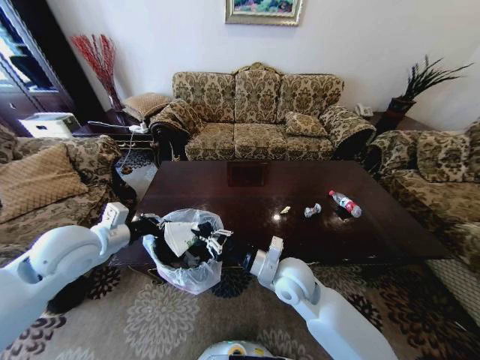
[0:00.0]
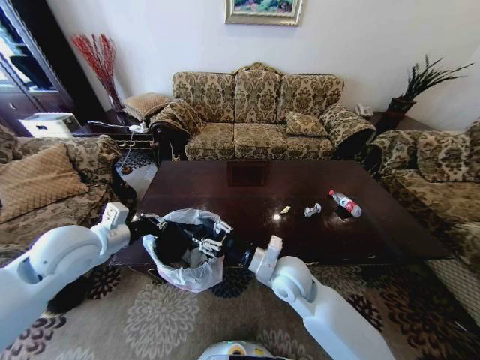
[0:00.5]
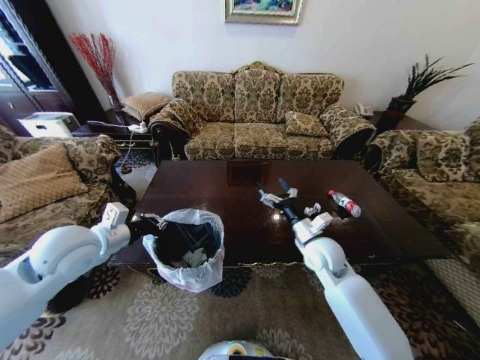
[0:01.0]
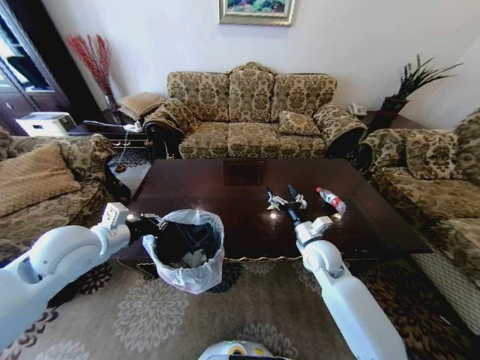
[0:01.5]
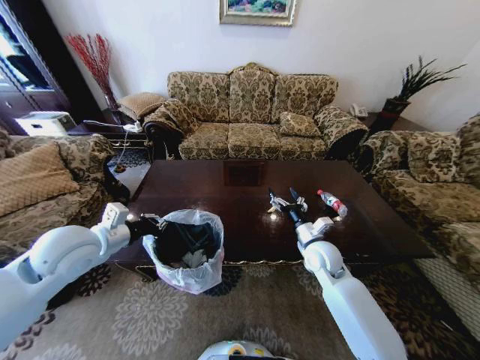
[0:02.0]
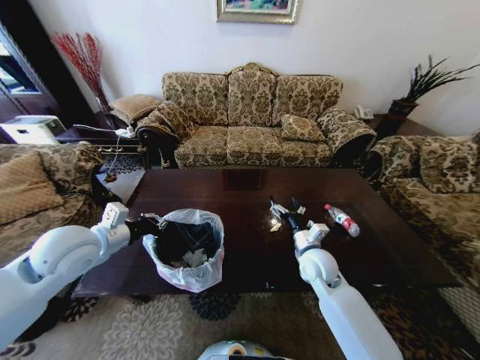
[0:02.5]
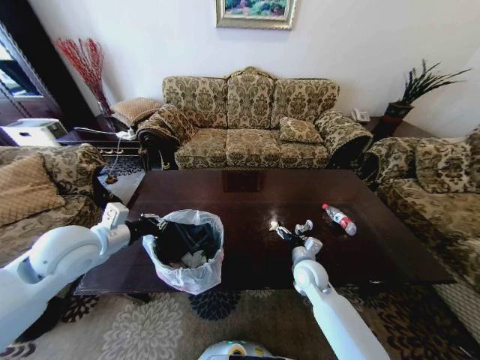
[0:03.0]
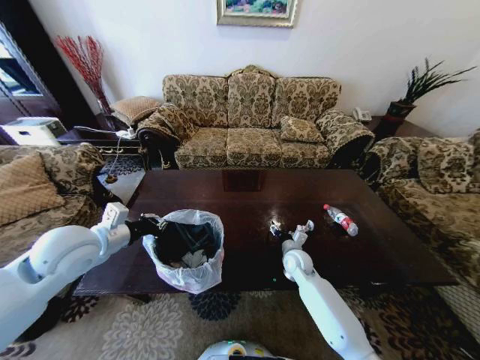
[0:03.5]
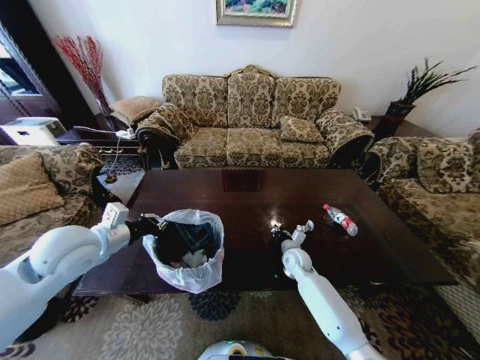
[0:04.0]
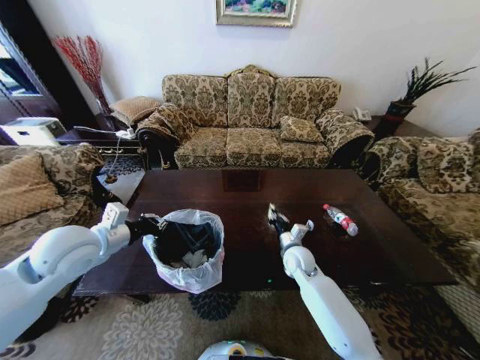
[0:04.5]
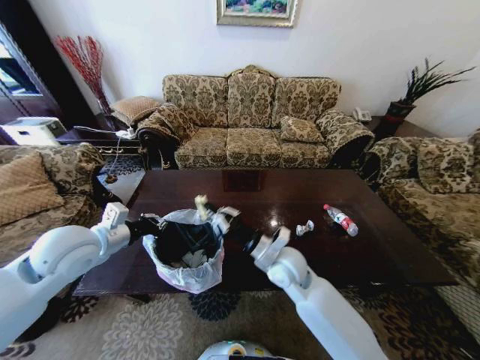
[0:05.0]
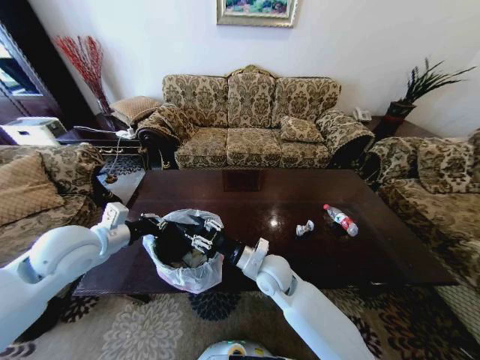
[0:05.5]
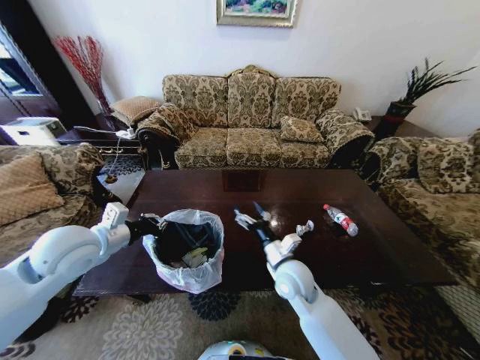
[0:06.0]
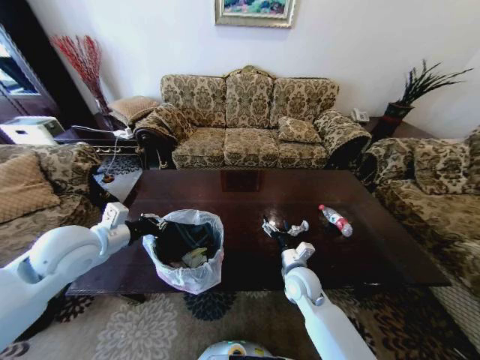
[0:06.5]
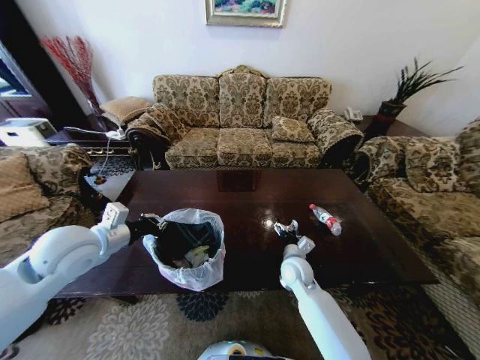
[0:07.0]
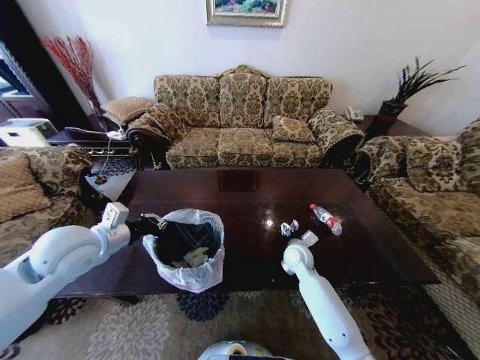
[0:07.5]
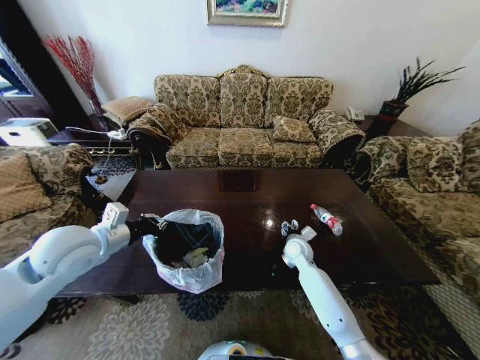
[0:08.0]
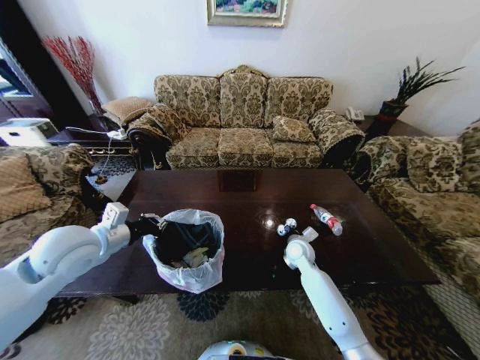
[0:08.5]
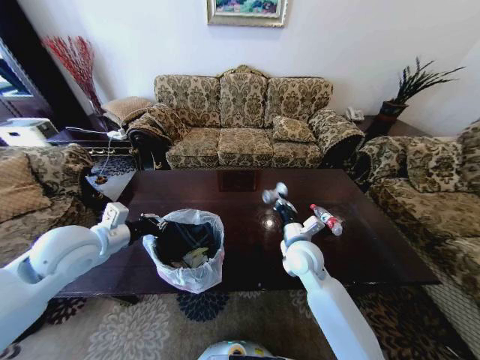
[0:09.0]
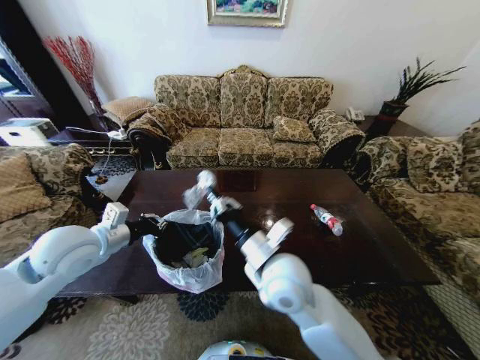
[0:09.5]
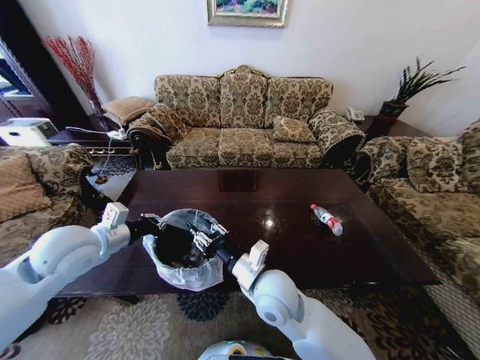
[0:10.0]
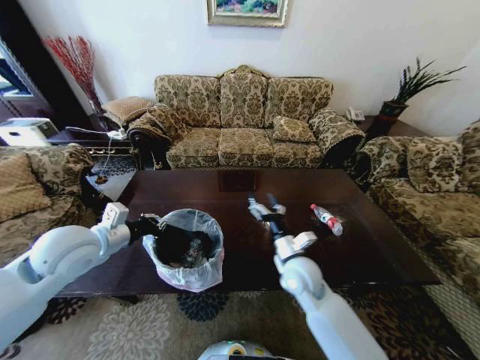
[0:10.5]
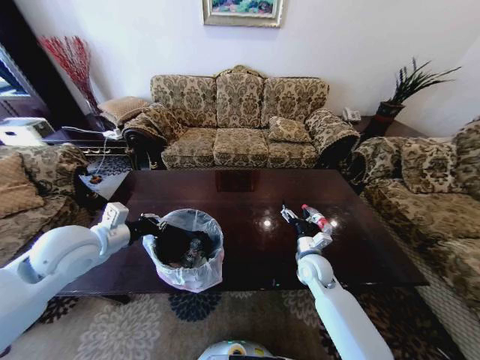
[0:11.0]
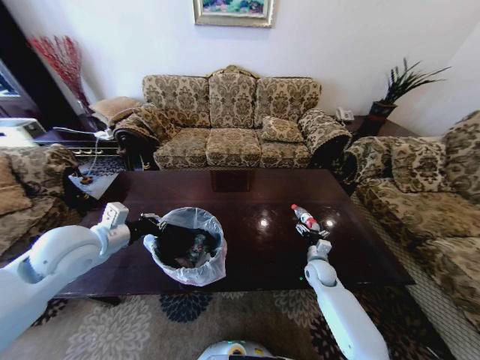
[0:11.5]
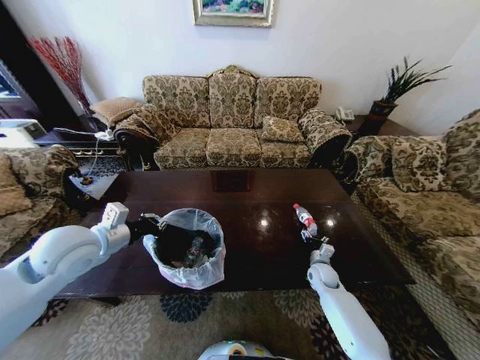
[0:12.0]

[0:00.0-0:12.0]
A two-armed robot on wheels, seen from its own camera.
Task of the whole recording: Move to the front of the table and place the trash on the table into the trash bin.
0:00.0 to 0:02.0: The right gripper moves to the right and forward, roughly 15 cm, and opens up.
0:02.0 to 0:04.0: The right gripper shifts about 15 cm downward, and closes.
0:04.0 to 0:06.0: The right gripper heads upward, backward and to the left, covering roughly 20 cm, and opens its fingers.
0:06.0 to 0:08.0: The right gripper goes about 15 cm forward, downward and to the right.
0:08.0 to 0:10.0: The right gripper shifts roughly 25 cm backward, to the left and upward.
0:10.0 to 0:12.0: The right gripper shifts approximately 35 cm to the right, downward and forward, and opens.

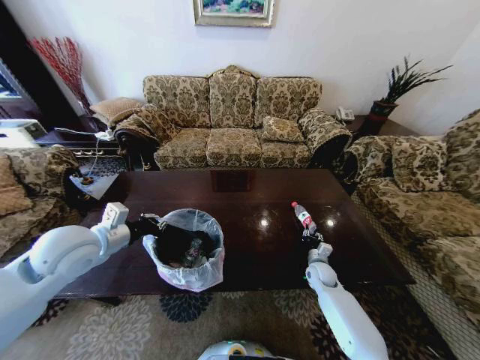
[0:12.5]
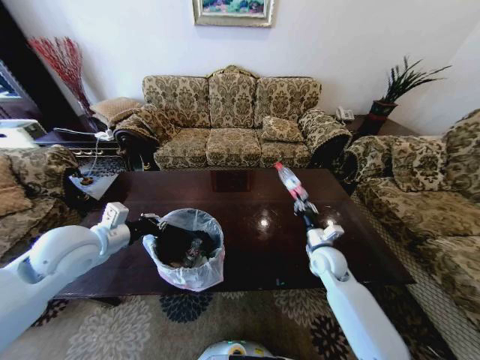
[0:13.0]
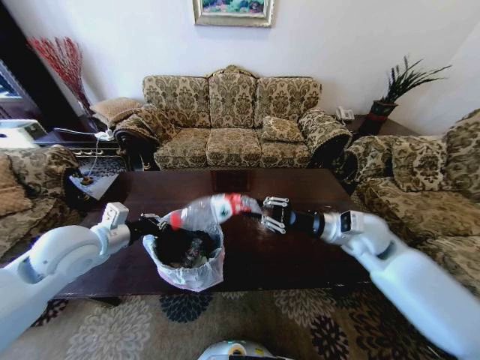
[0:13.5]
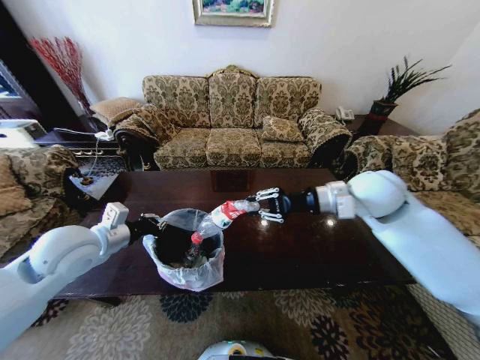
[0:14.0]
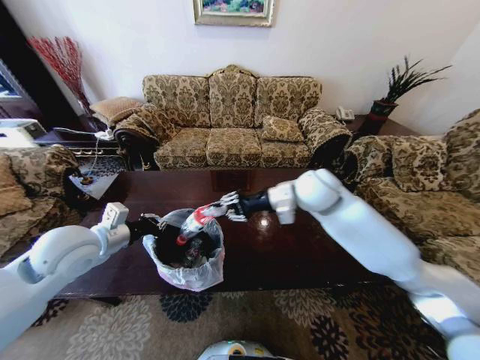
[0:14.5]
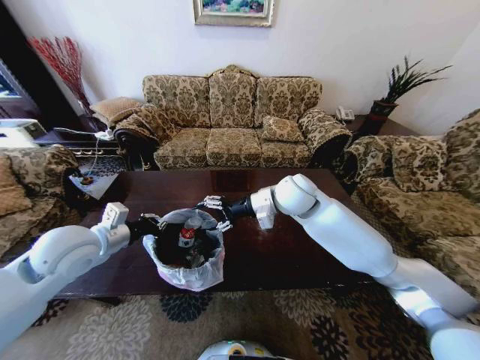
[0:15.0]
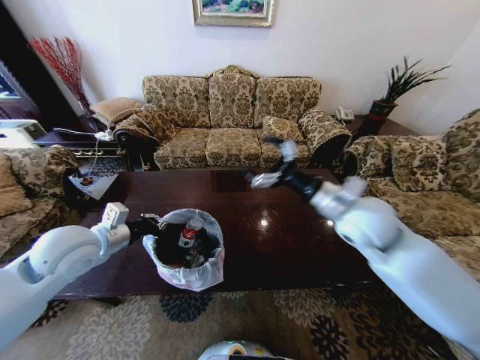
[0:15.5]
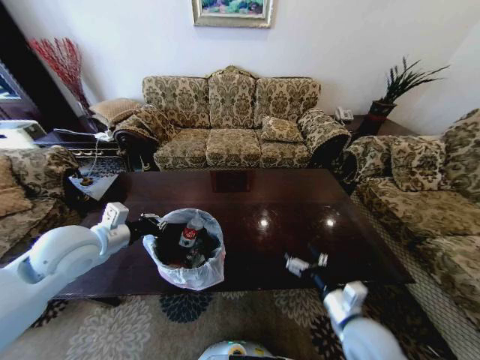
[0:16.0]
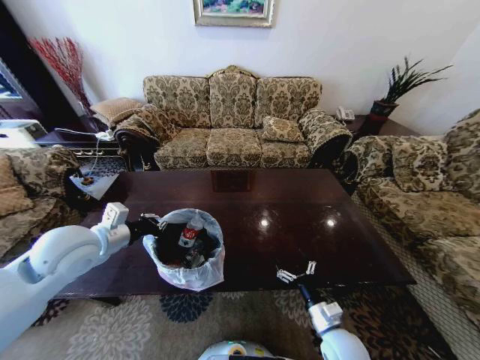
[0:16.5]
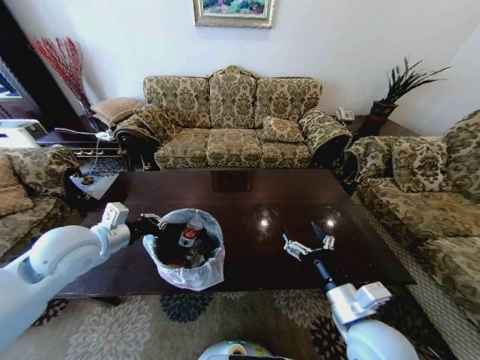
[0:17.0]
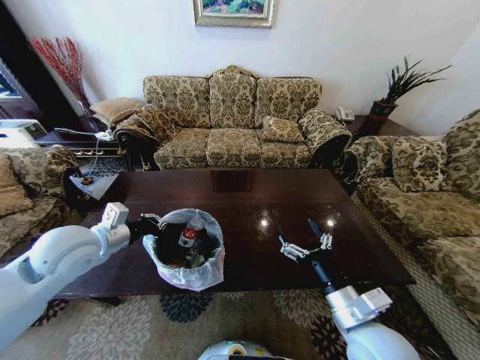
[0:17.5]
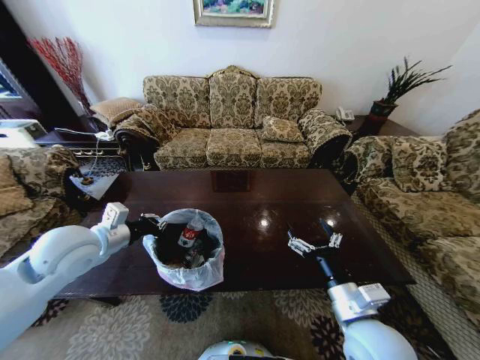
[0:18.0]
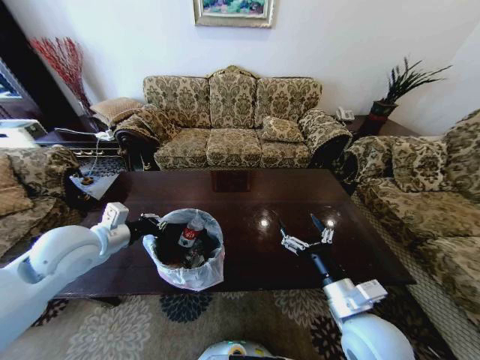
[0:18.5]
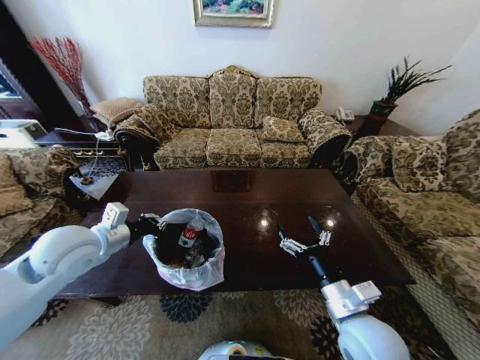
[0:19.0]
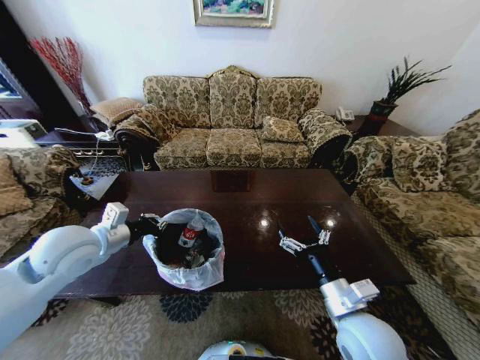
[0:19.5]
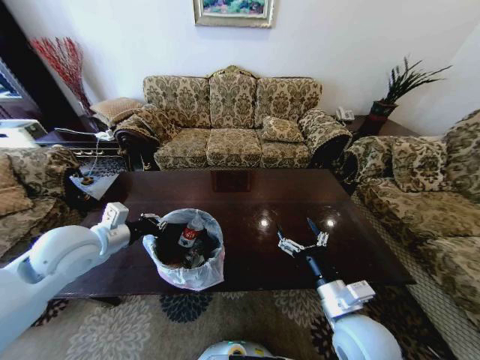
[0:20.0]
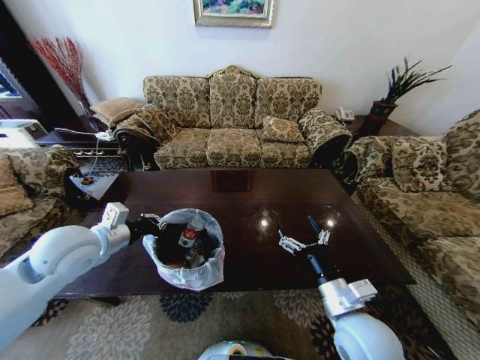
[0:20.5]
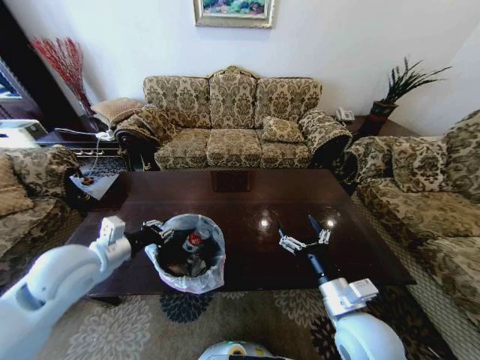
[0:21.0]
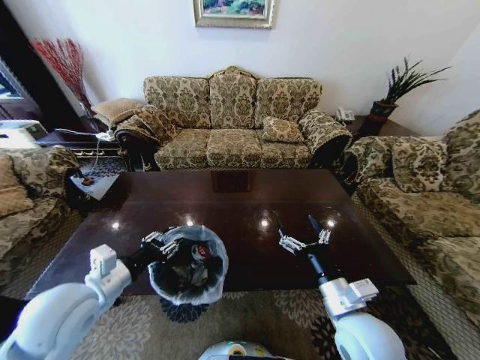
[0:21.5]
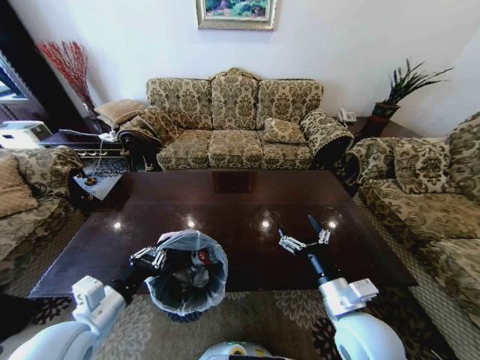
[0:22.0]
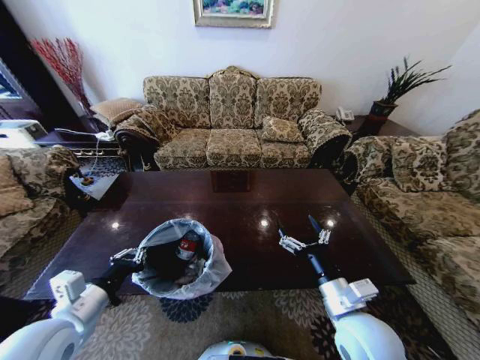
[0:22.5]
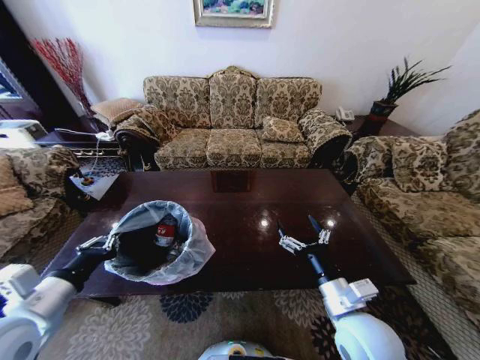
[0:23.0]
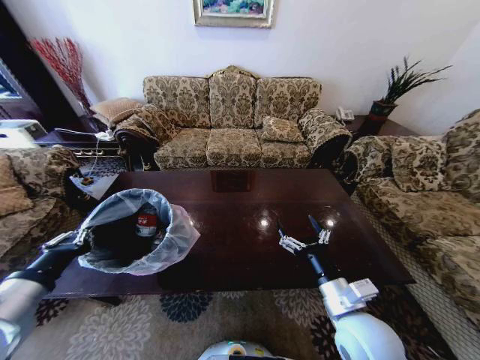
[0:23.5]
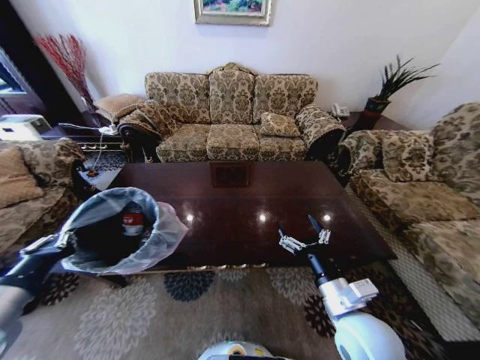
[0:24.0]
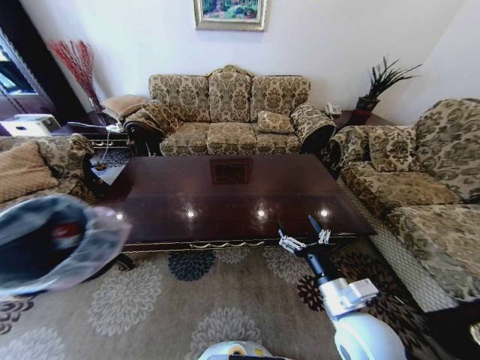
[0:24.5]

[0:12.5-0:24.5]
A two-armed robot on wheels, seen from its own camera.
Task of the whole recording: Move to the front of the table and place the trash on the table into the trash bin.
0:12.5 to 0:14.5: The right gripper is displaced upward by some 40 cm.
0:14.5 to 0:16.5: The right gripper shifts approximately 40 cm downward and backward, and opens its fingers.
0:16.5 to 0:18.5: The right gripper heads upward, covering some 20 cm.
0:18.5 to 0:20.5: There are only small adjustments of the grippers.
0:20.5 to 0:22.5: The left gripper shifts roughly 15 cm backward and downward, and opens, then closes once more.
0:22.5 to 0:24.5: The left gripper goes roughly 20 cm to the left and backward.

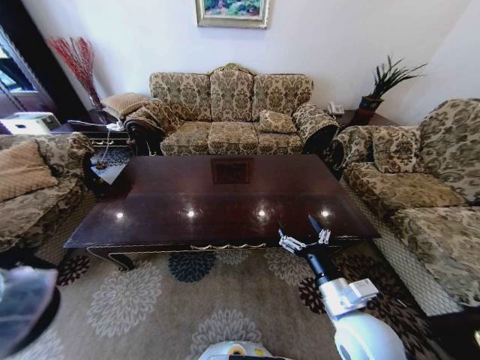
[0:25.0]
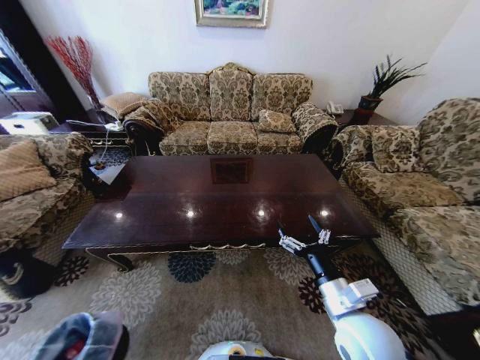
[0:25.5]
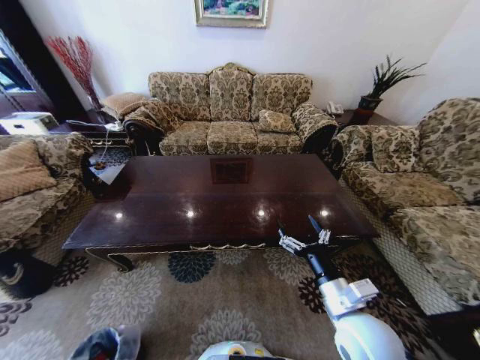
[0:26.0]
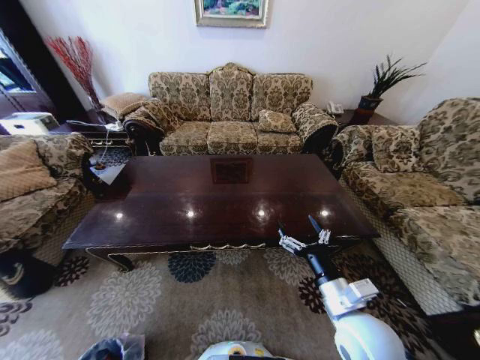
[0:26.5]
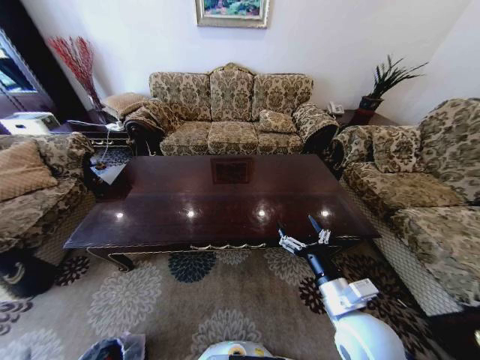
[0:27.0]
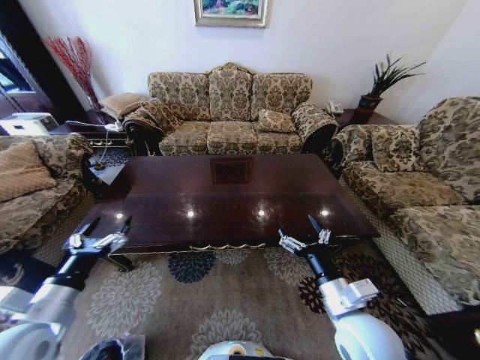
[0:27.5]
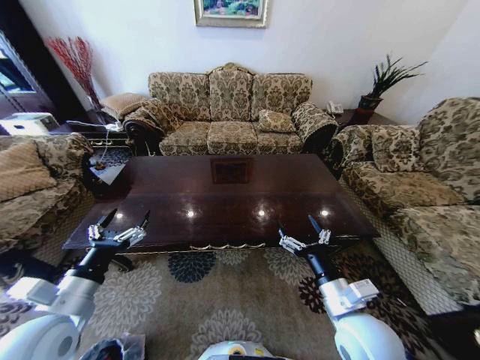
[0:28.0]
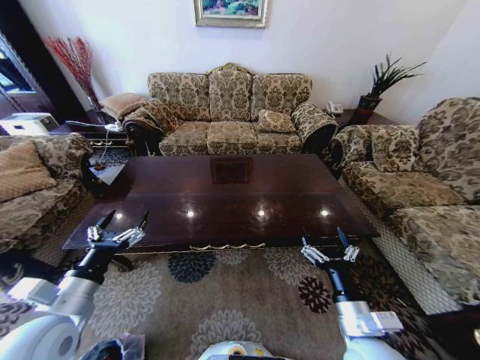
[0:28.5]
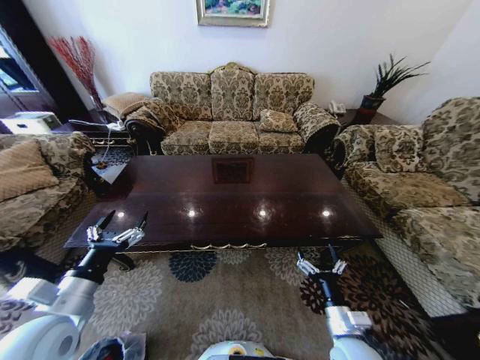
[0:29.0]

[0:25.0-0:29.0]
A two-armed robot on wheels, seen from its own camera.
Task of the whole recording: Move to the front of the table and place the trash on the table into the trash bin.
0:25.0 to 0:27.0: The left gripper goes about 20 cm downward, and opens its fingers.
0:27.0 to 0:29.0: The right gripper travels downward by approximately 10 cm; the left gripper goes roughly 40 cm to the right, upward and forward.
